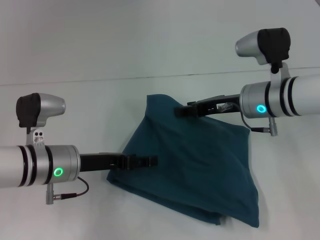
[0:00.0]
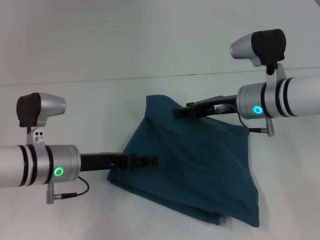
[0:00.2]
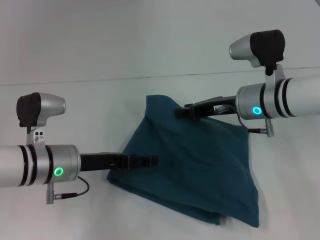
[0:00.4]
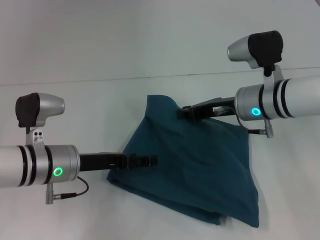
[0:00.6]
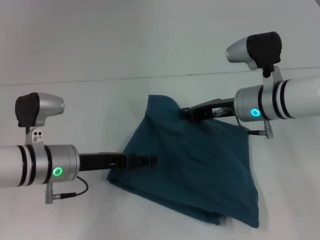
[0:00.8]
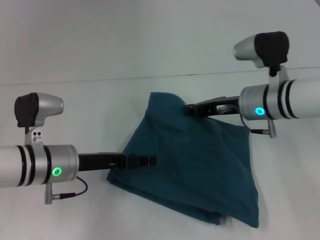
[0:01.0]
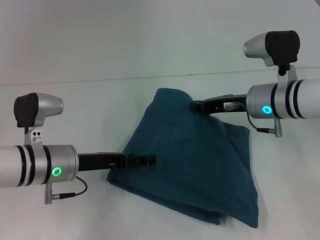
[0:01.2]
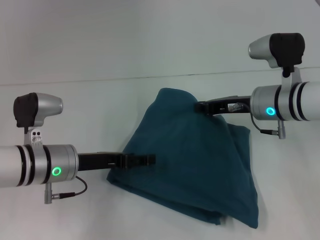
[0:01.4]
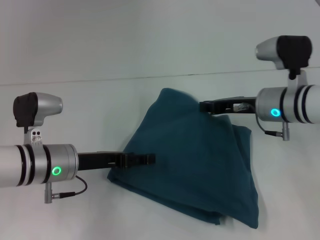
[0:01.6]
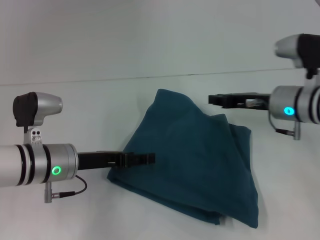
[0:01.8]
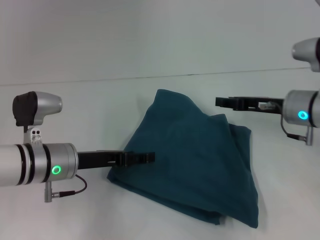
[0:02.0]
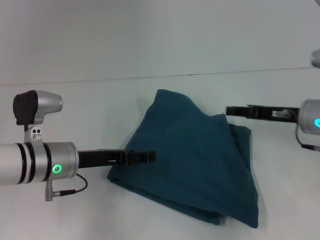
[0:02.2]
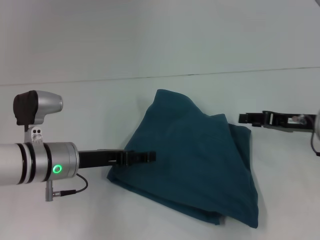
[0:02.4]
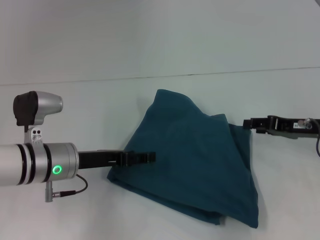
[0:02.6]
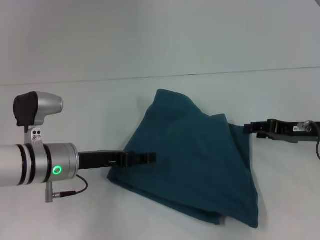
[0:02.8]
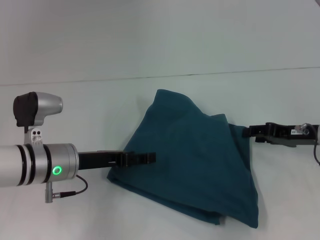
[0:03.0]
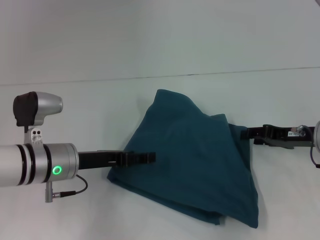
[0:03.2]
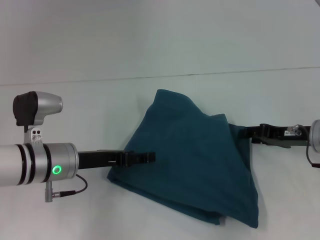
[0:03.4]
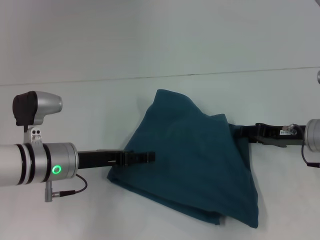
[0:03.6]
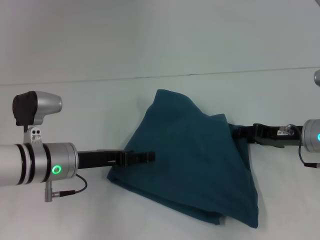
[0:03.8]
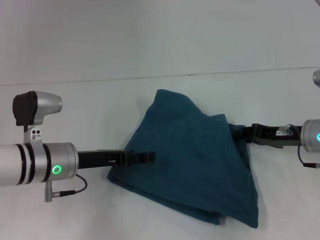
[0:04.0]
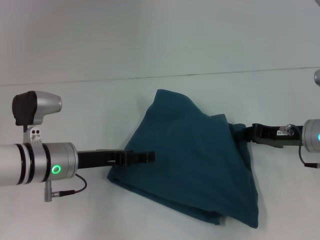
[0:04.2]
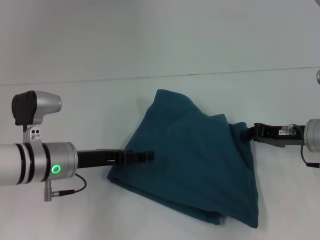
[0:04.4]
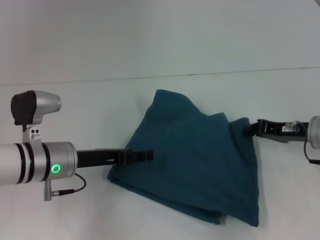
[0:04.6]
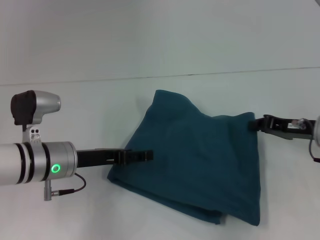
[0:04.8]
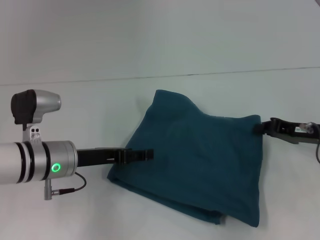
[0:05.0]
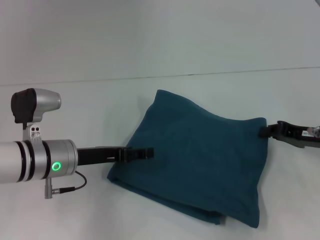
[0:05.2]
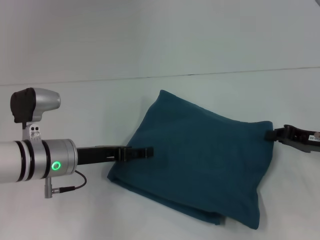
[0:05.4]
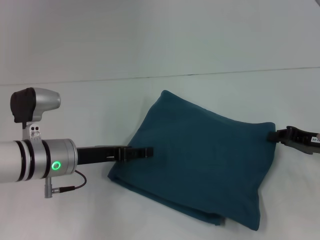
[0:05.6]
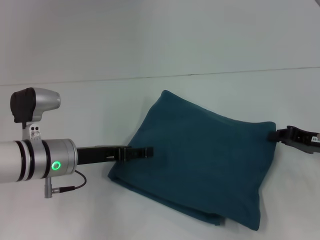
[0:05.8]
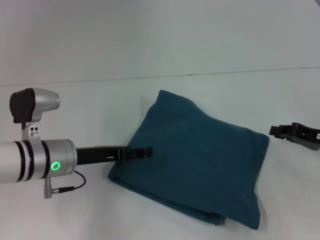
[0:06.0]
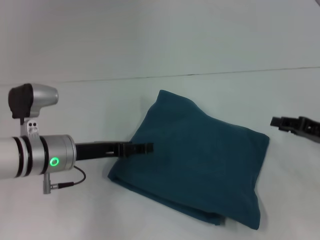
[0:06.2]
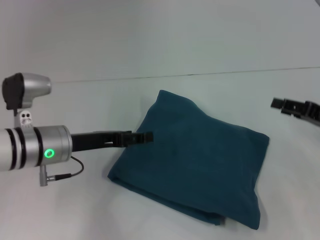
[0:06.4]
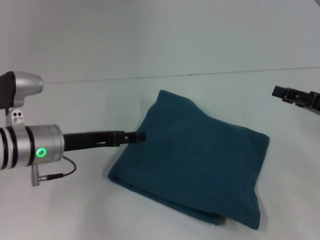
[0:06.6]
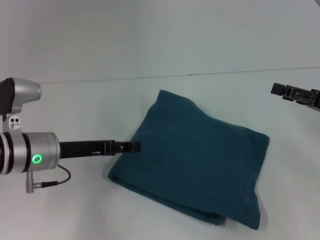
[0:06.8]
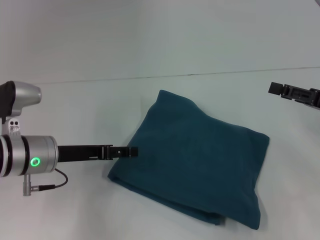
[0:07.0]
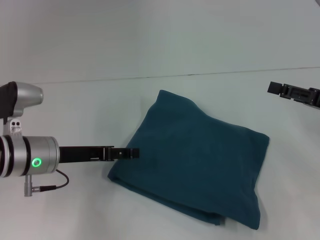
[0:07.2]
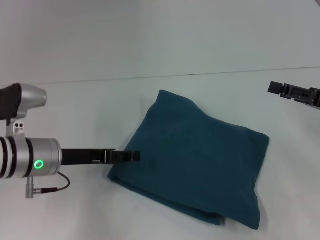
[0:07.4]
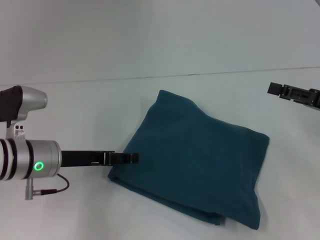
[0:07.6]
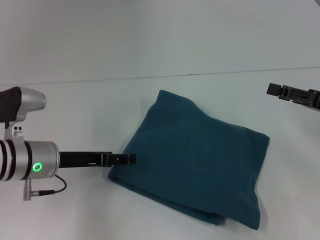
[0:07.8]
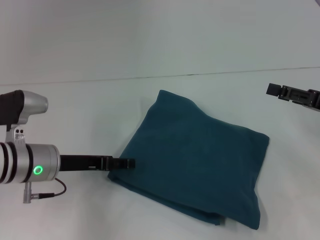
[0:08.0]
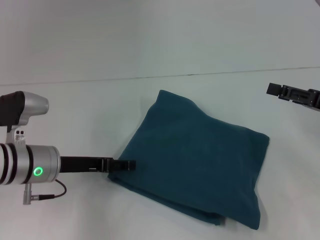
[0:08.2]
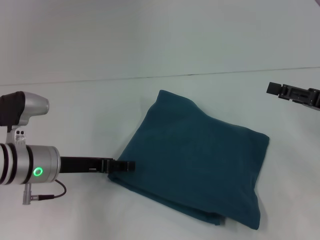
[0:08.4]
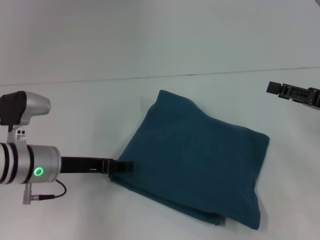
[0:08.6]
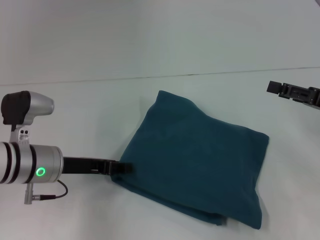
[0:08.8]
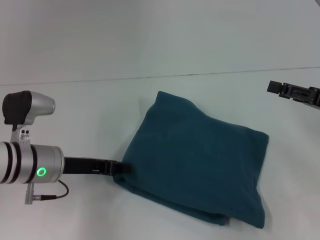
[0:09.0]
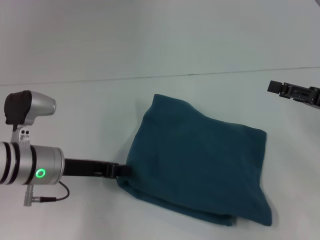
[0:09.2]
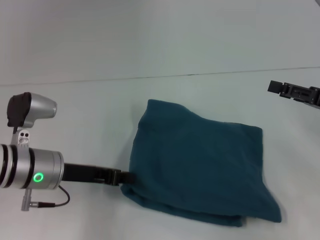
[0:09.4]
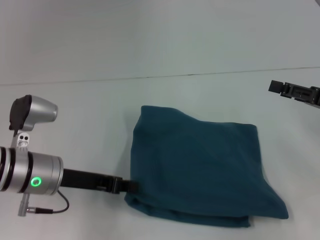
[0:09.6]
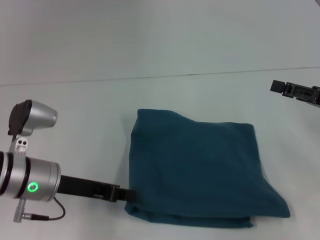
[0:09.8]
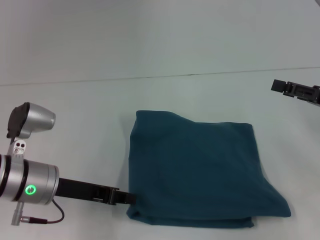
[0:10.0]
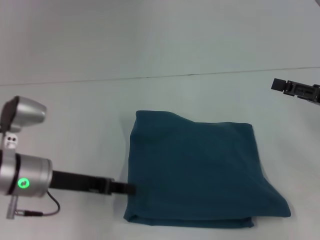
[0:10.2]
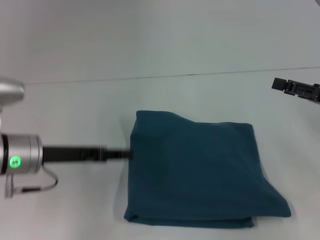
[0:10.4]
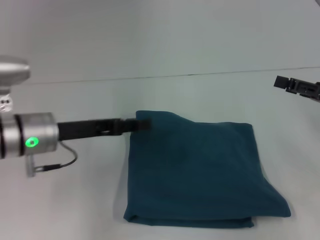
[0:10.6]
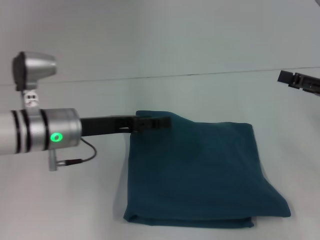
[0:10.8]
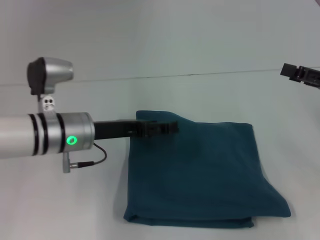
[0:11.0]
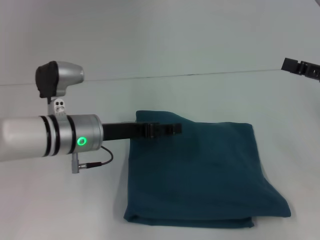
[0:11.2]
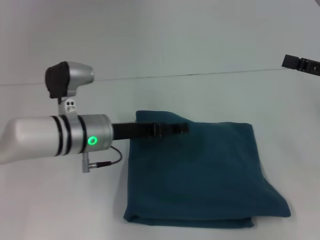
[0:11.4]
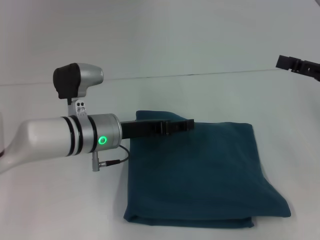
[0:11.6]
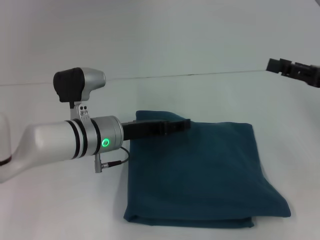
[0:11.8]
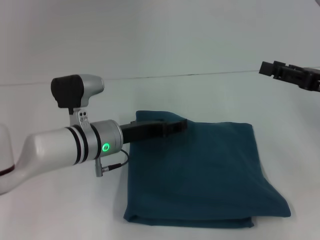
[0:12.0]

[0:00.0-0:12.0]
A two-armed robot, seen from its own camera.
0:00.0 to 0:01.6: The right gripper closes.
0:01.6 to 0:03.0: The right gripper goes about 10 cm to the right, and opens its fingers.
0:03.0 to 0:04.4: The right gripper closes up.
0:04.4 to 0:06.0: The right gripper travels to the right by some 5 cm.
0:06.0 to 0:07.6: The right gripper travels upward by roughly 5 cm, and opens up.
0:07.6 to 0:09.0: The left gripper closes its fingers.
0:09.0 to 0:10.4: There are only small adjustments of the grippers.
0:10.4 to 0:12.0: The left gripper shifts approximately 10 cm to the right, and opens its fingers.

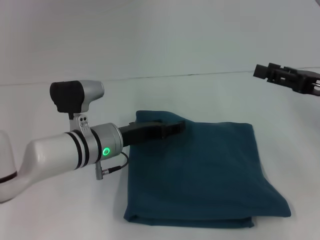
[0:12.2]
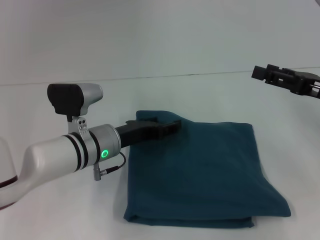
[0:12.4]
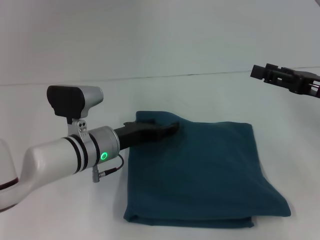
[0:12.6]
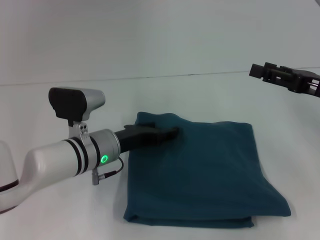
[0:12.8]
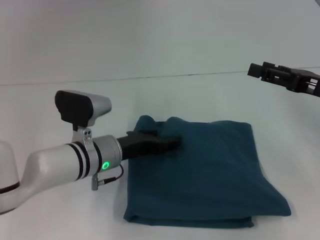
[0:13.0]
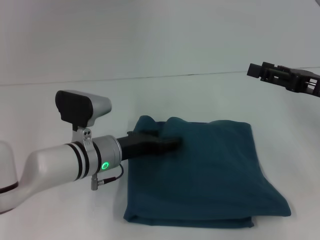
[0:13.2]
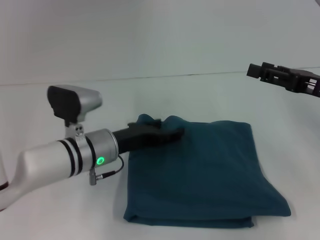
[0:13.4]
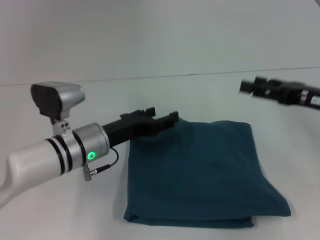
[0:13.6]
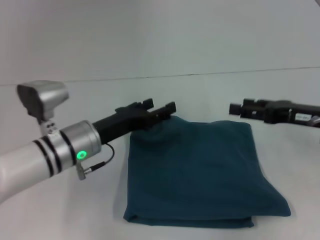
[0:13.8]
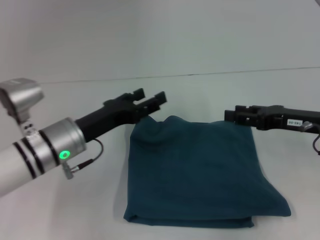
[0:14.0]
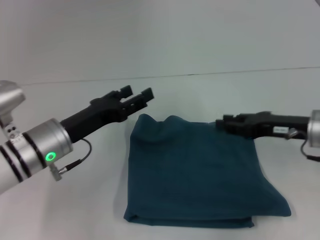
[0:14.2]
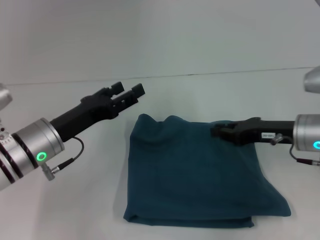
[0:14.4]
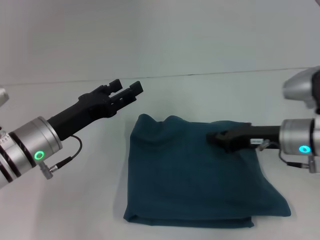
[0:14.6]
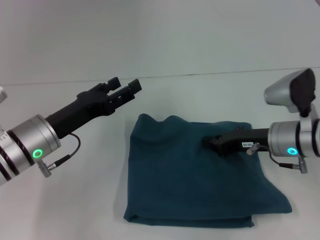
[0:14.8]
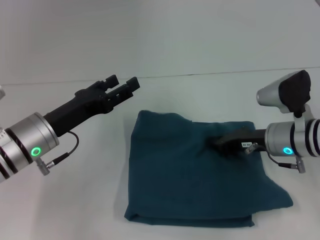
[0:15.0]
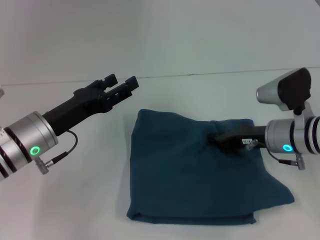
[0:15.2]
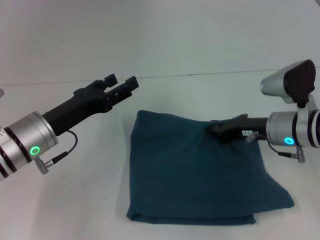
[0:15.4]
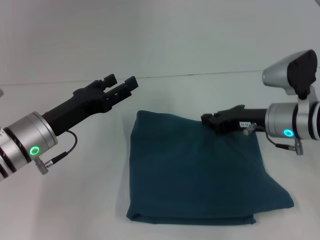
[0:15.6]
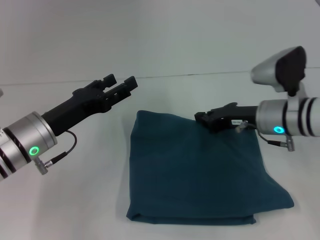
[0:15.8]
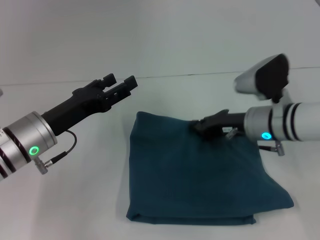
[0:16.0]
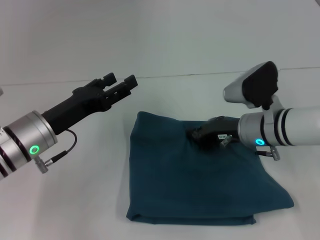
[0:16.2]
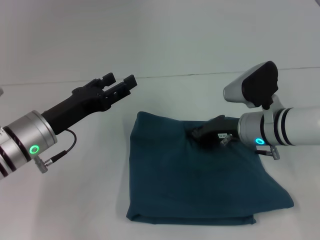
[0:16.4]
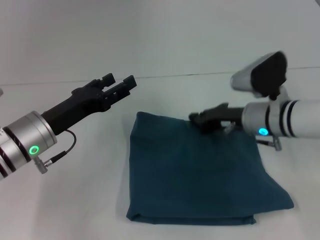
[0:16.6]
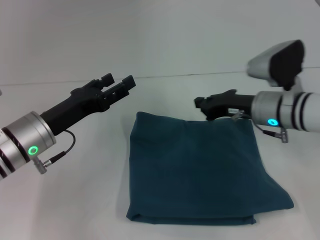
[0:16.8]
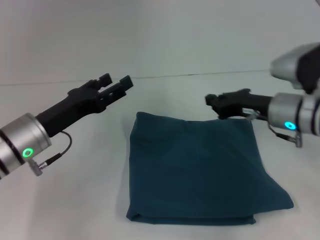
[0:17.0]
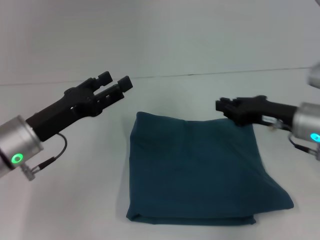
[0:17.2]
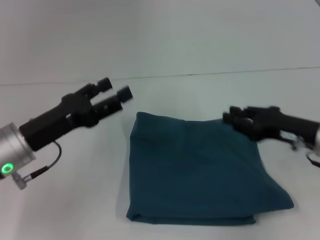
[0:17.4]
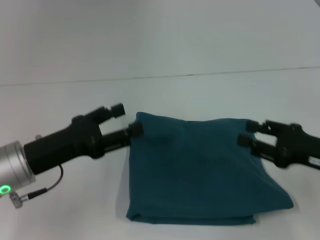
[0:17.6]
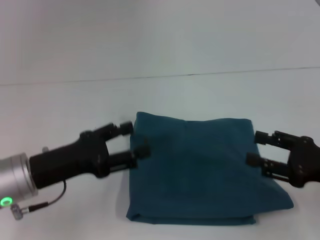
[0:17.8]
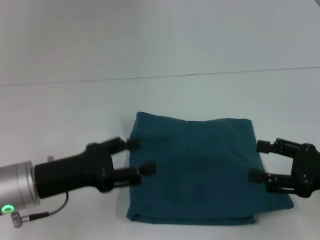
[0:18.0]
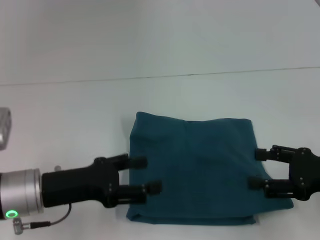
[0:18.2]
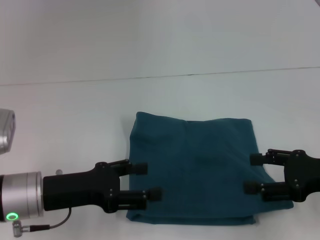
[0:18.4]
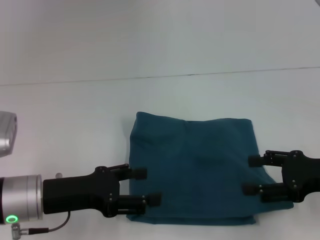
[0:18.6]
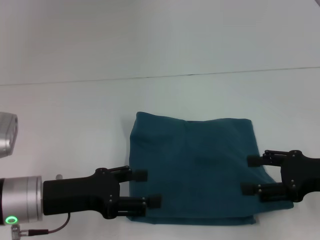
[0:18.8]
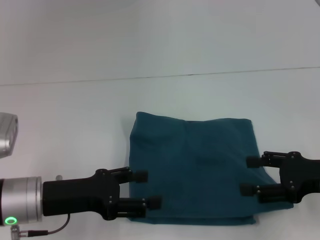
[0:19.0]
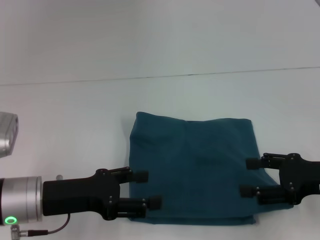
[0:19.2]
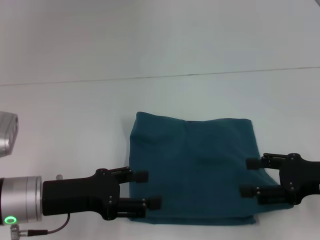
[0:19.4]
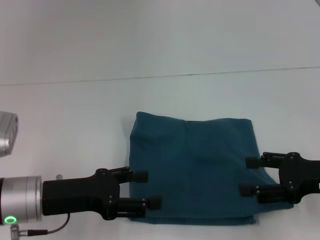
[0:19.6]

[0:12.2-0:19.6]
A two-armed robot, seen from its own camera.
0:12.2 to 0:13.6: The grippers make only small movements.
0:13.6 to 0:15.2: The right gripper shifts some 10 cm to the left and downward, and closes its fingers; the left gripper moves to the left, about 5 cm.
0:15.2 to 0:16.6: The grippers make only small movements.
0:16.6 to 0:18.2: The left gripper goes some 5 cm backward; the right gripper travels backward and to the right by approximately 20 cm, and opens its fingers.
0:18.2 to 0:19.6: The grippers make only small movements.

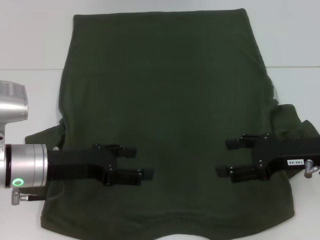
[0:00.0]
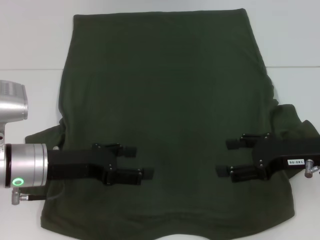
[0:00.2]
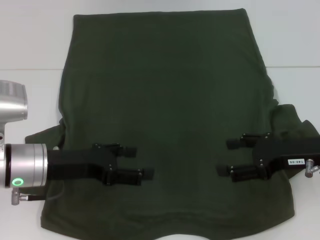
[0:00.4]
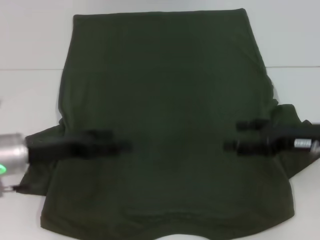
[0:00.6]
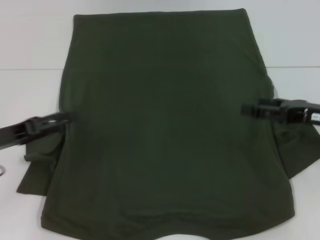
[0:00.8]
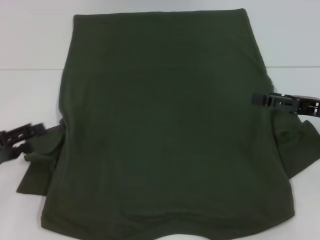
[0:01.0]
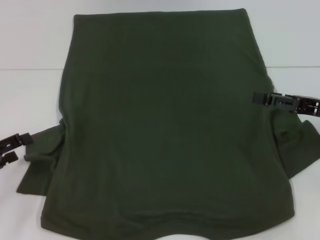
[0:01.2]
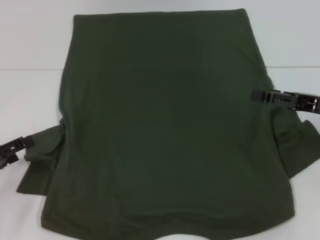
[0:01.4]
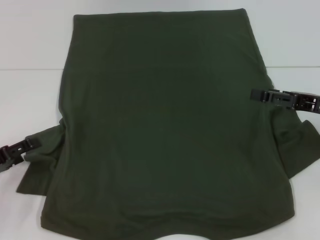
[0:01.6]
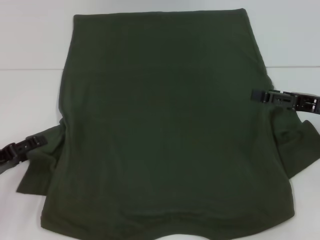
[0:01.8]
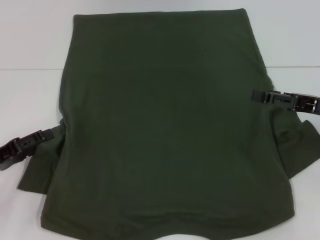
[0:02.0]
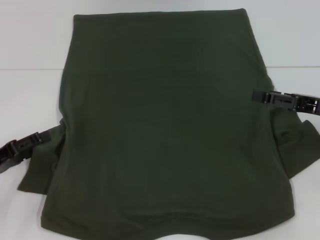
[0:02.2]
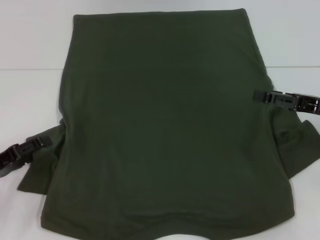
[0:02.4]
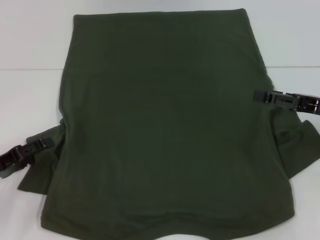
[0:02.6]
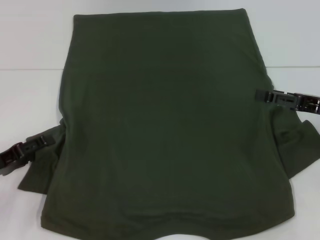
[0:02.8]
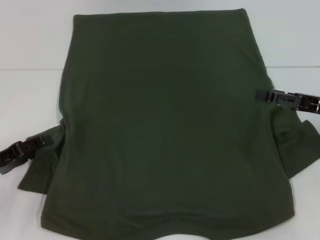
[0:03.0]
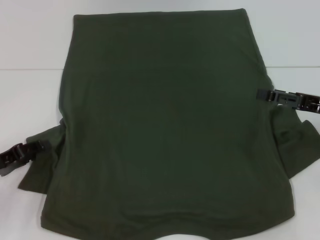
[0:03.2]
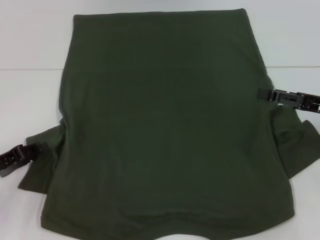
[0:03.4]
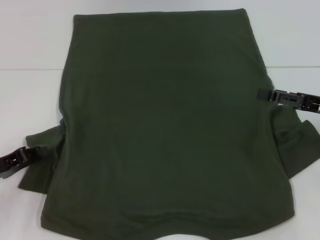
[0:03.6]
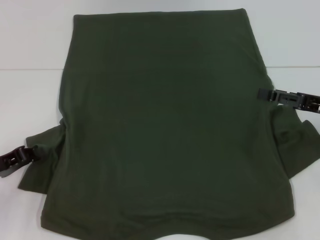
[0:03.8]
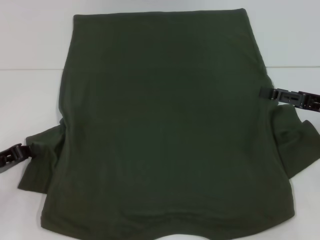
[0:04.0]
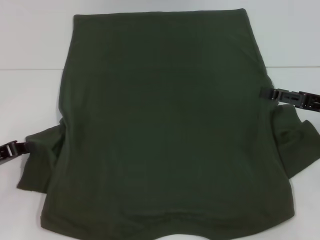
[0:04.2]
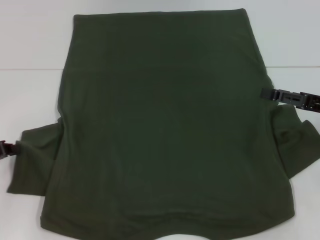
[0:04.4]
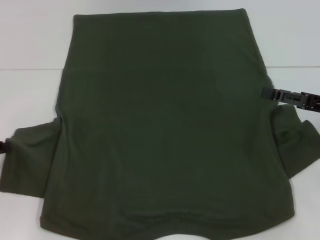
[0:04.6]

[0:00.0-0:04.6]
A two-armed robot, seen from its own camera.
0:00.0 to 0:01.6: The left gripper shifts approximately 15 cm to the left, while the right gripper changes place by approximately 5 cm.
0:01.6 to 0:03.0: The grippers make only small movements.
0:03.0 to 0:04.6: The left gripper moves roughly 5 cm, and closes up.
